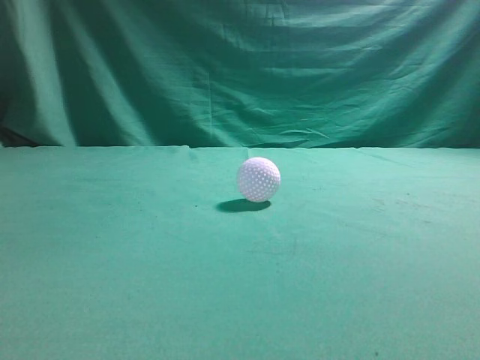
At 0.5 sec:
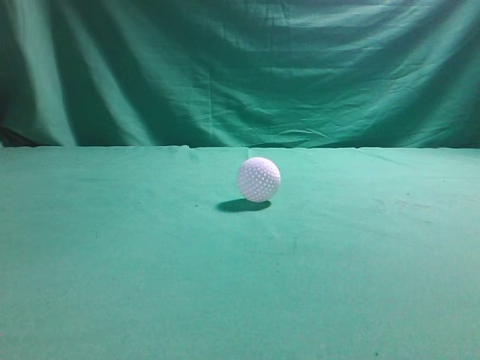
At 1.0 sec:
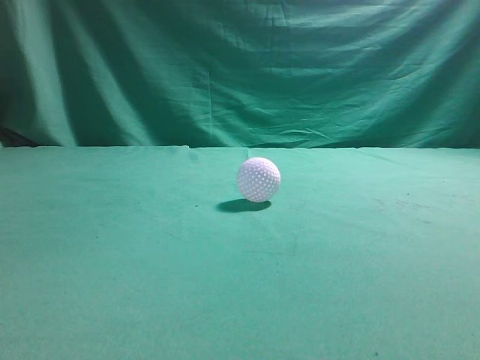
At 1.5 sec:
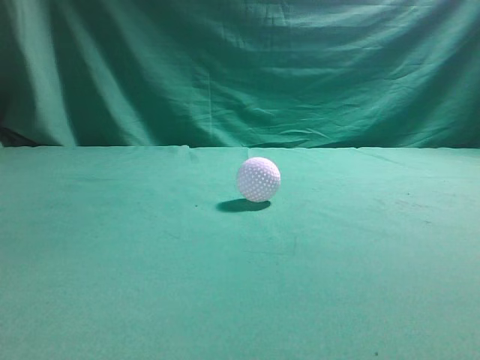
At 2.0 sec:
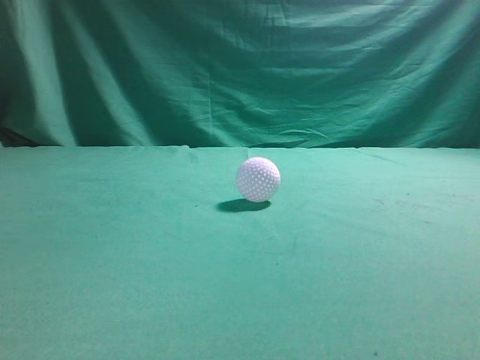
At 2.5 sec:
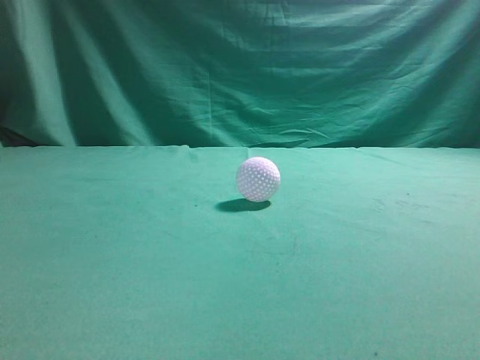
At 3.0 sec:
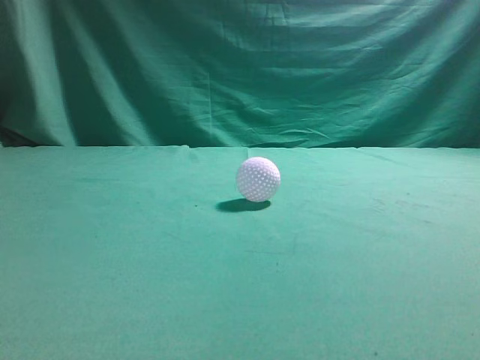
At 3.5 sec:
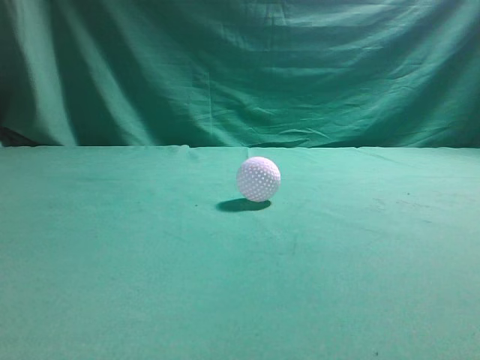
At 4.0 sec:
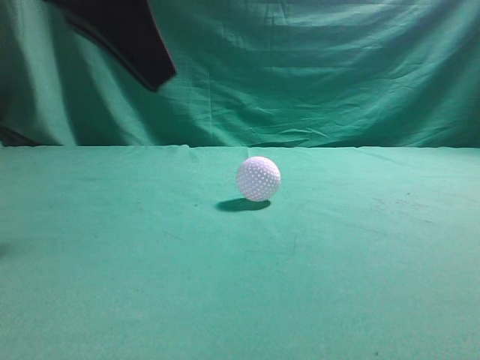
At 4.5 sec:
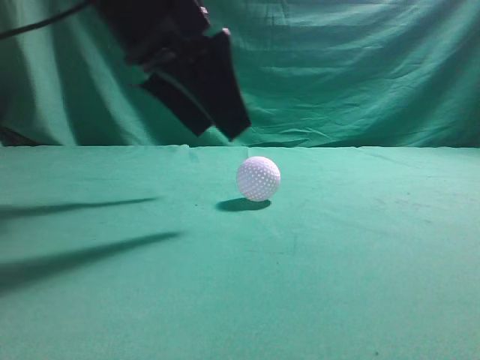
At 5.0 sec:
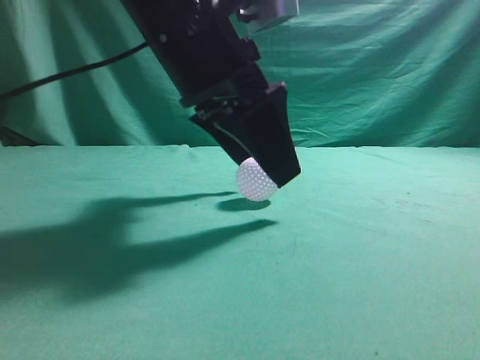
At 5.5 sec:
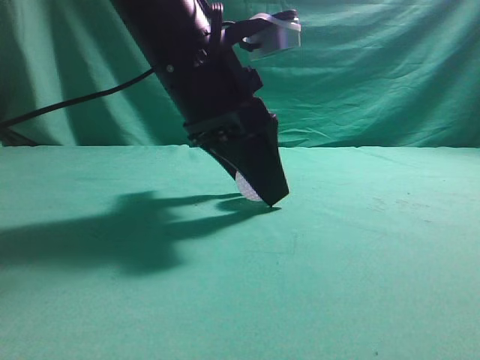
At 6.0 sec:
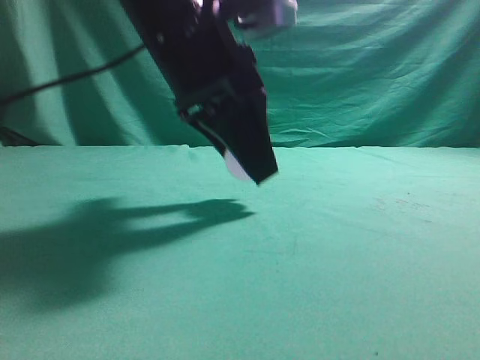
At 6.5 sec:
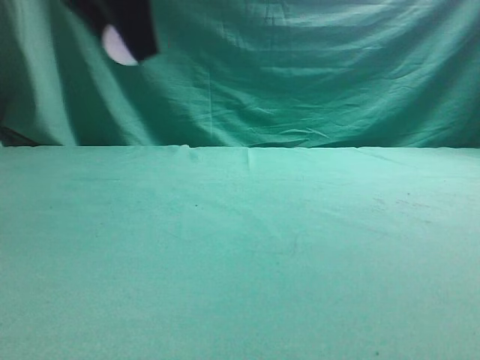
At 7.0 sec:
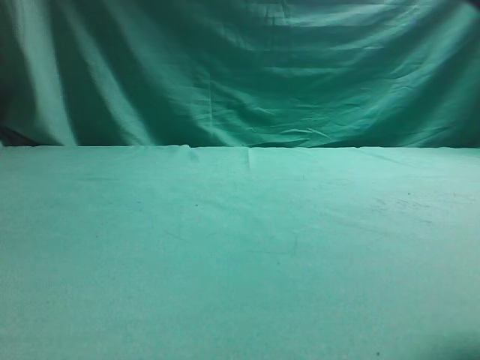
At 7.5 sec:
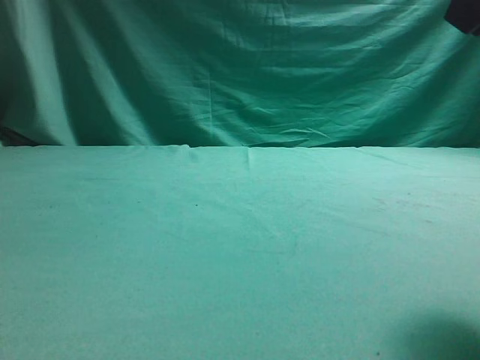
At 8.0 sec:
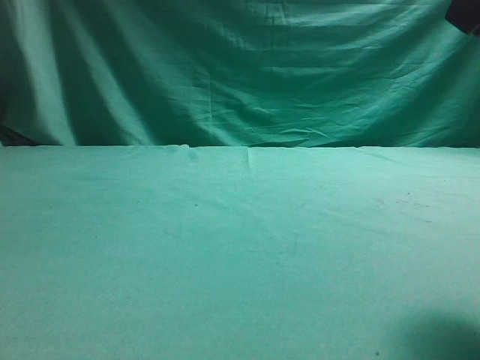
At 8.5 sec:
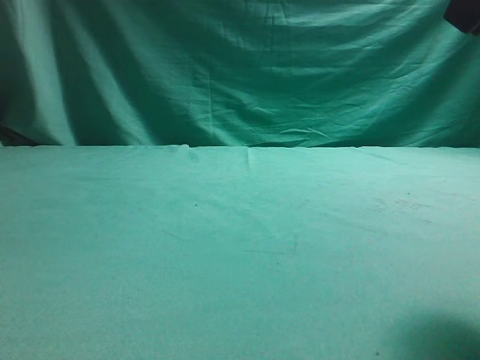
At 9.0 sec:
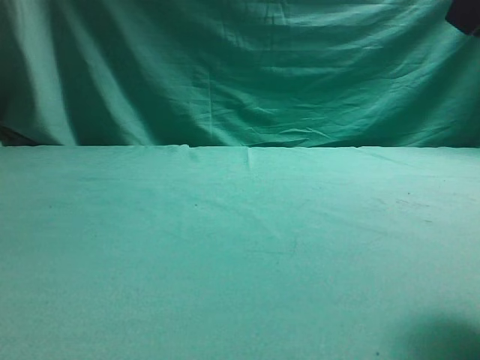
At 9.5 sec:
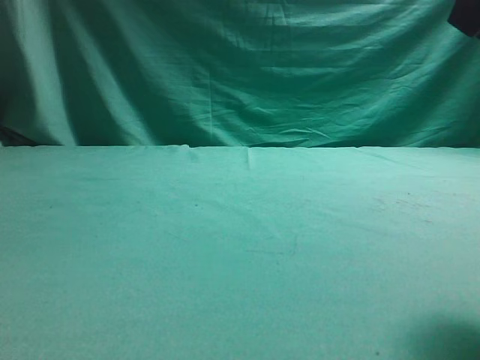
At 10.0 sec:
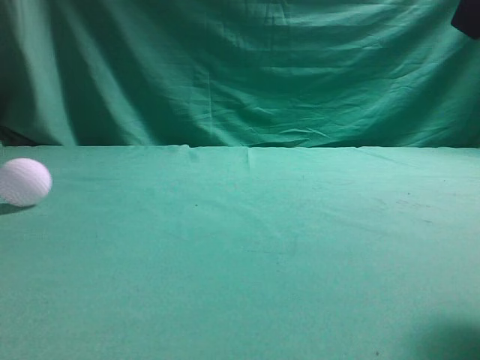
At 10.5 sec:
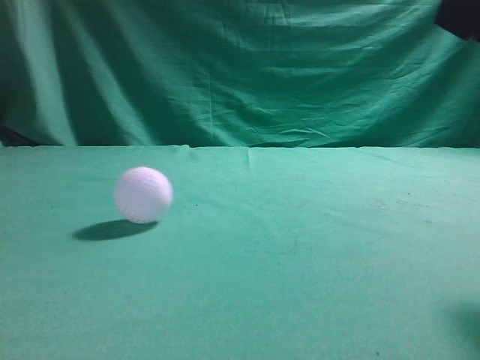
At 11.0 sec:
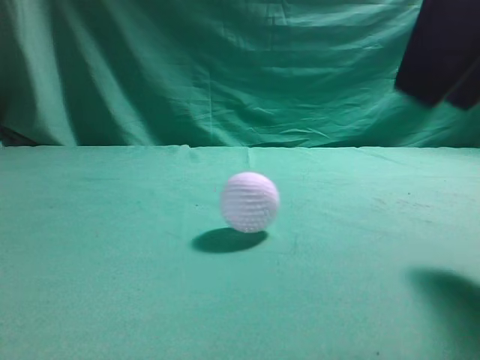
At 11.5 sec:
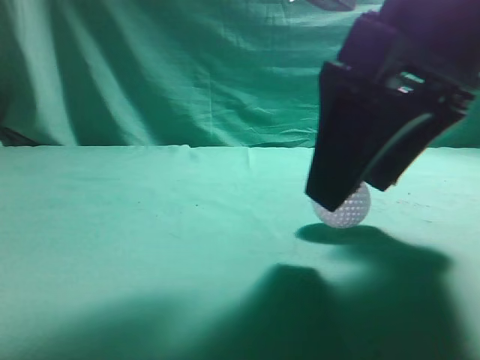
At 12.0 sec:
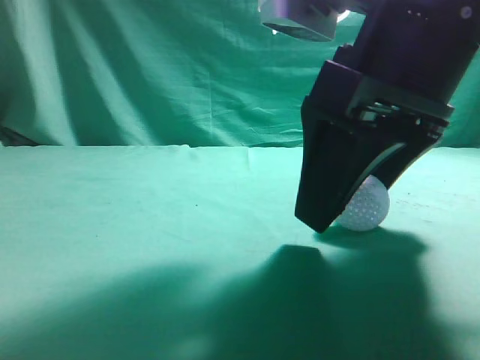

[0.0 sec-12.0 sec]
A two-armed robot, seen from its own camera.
Task of the whole recording: pick up the ball and place it on the plate, then pick up the ball from the plate and put it in the center of the table.
Step, 0.0 sec to 6.0 sec: Grab the spherical object with your left arm.
Step, 6.5 sec to 9.0 sec: Place the sphere on the white object.
2.0 sec to 4.0 sec: The left gripper moves forward and to the right, roughly 25 cm.
4.0 sec to 6.0 sec: The right gripper travels forward and upward by about 10 cm; the left gripper goes roughly 10 cm to the right, downward and forward, and opens up.
6.0 sec to 8.0 sec: The right gripper goes about 10 cm to the left and forward; the left gripper goes about 30 cm to the left.
8.0 sec to 10.0 sec: The left gripper goes about 5 cm upward.
10.0 sec to 12.0 sec: The right gripper heads downward and to the left, covering some 15 cm, and opens. The left gripper is displaced backward and upward by about 20 cm, and closes its fingers.

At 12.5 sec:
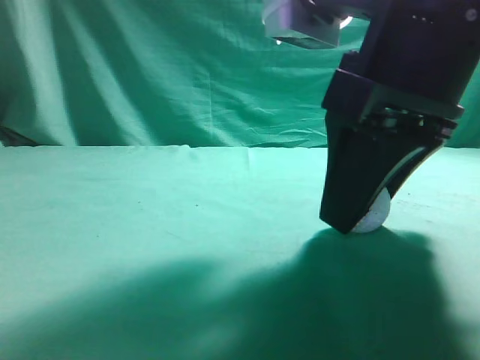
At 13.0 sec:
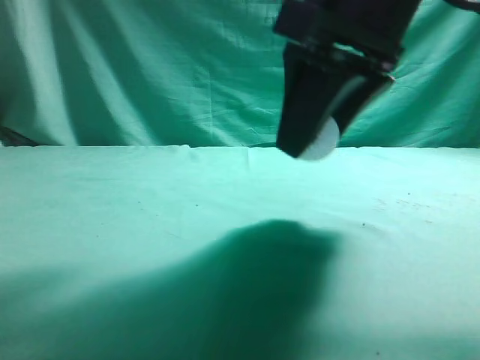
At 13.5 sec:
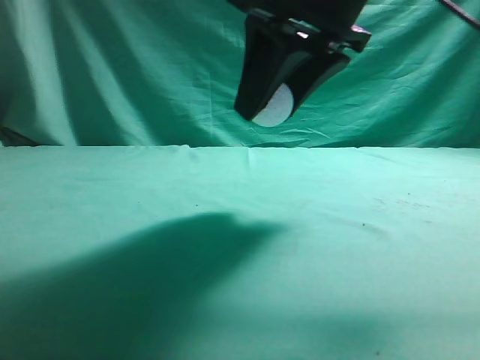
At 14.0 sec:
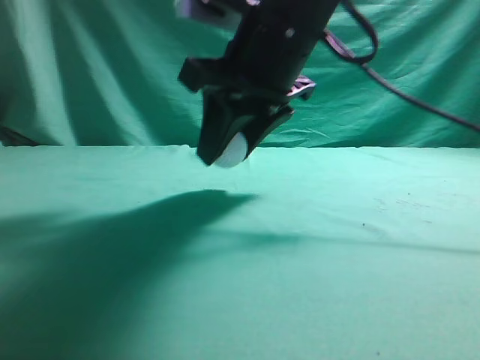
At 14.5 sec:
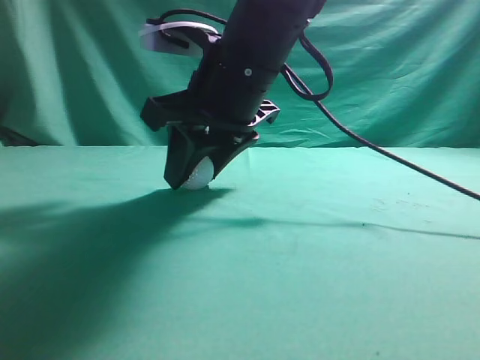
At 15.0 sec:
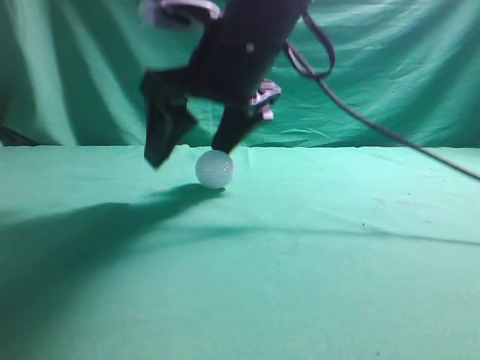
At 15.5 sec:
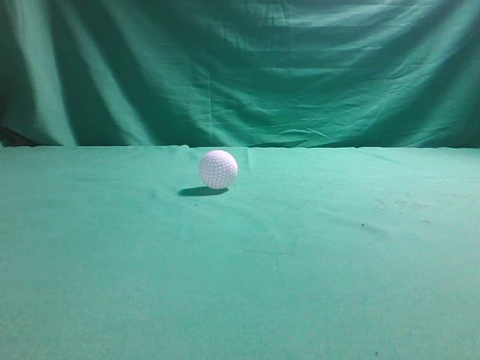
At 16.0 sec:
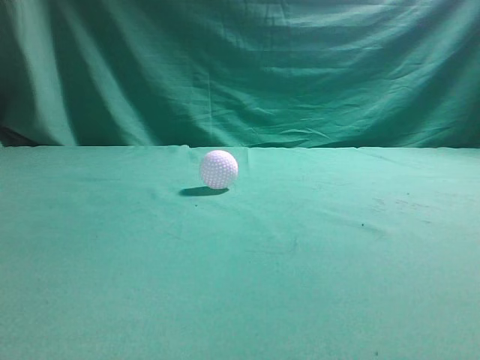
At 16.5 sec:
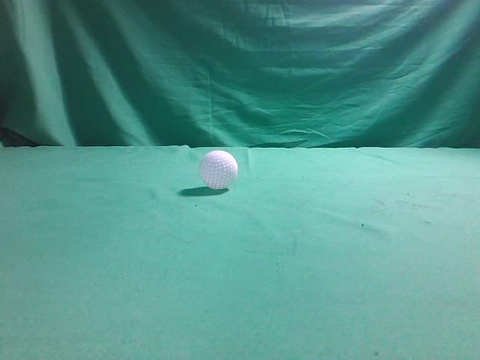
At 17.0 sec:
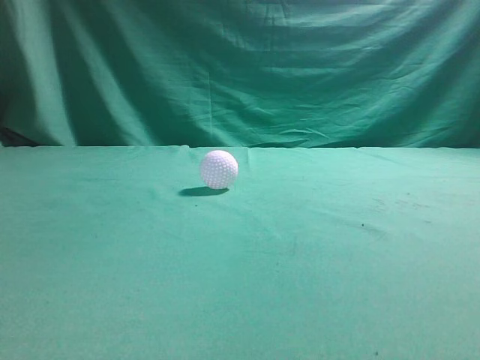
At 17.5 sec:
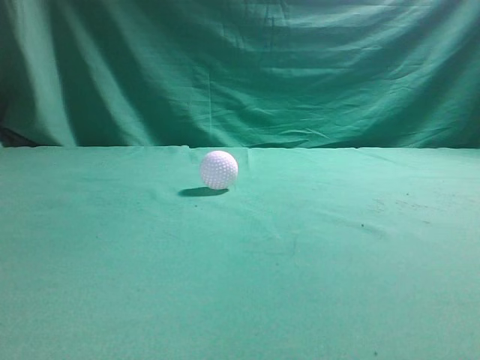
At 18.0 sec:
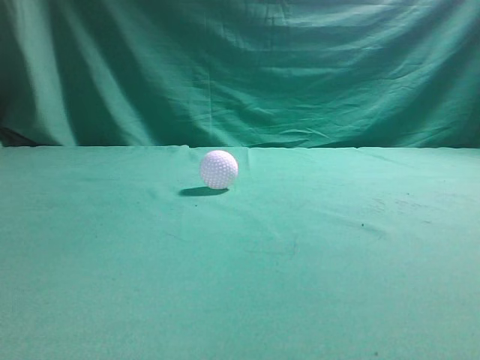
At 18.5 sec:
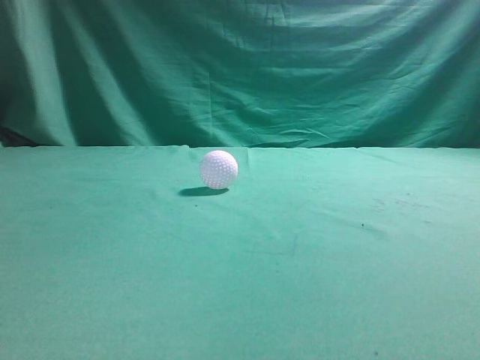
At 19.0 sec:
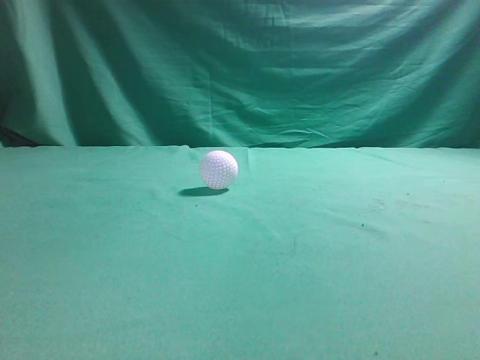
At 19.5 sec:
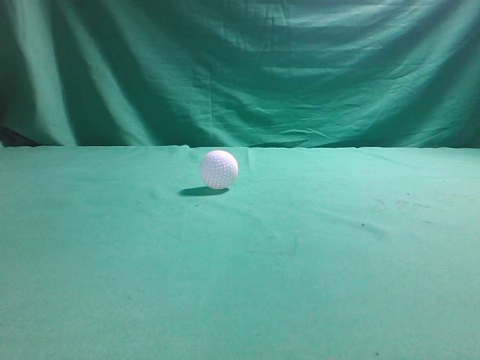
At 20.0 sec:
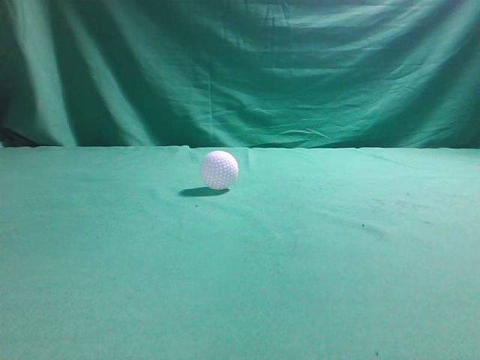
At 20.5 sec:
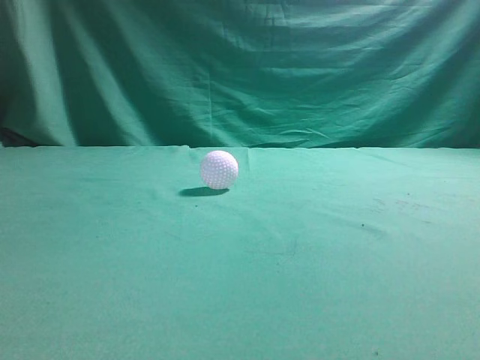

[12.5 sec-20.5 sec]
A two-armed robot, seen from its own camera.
Task of the whole recording: pick up the ball and place it on the plate, then pick up the ball from the plate and put it in the center of the table.
Step, 13.0 sec to 15.0 sec: Put the picked-up object on the table.
12.5 sec to 14.5 sec: The left gripper is displaced backward and downward by approximately 15 cm; the right gripper moves to the left and forward, roughly 15 cm.
14.5 sec to 16.5 sec: The left gripper heads downward, covering about 10 cm. Meanwhile the right gripper goes approximately 35 cm backward, to the right and upward, and closes its fingers.
